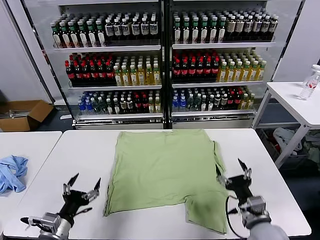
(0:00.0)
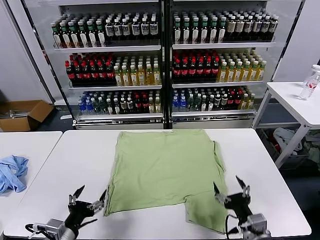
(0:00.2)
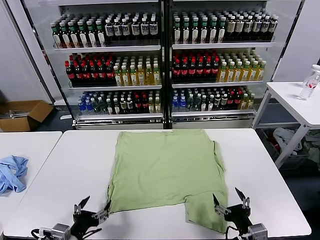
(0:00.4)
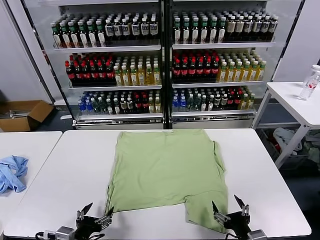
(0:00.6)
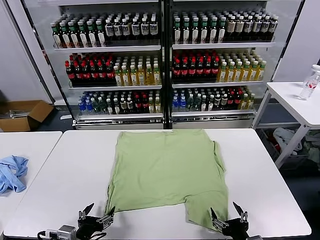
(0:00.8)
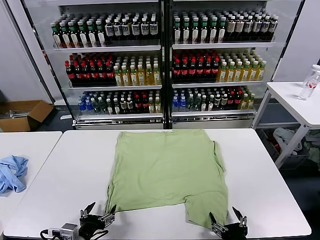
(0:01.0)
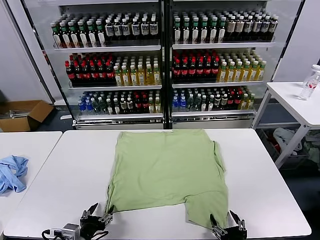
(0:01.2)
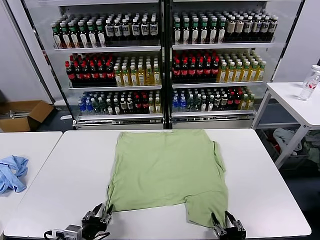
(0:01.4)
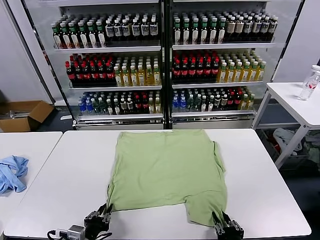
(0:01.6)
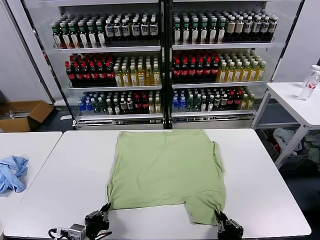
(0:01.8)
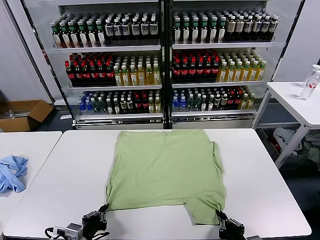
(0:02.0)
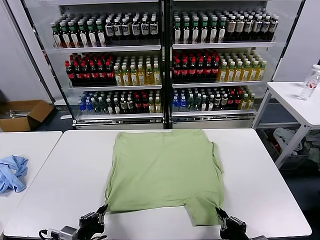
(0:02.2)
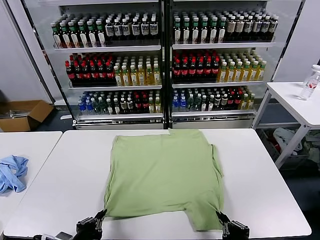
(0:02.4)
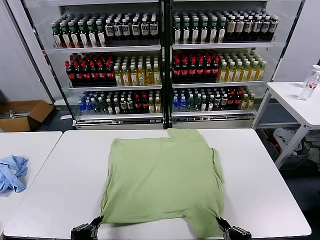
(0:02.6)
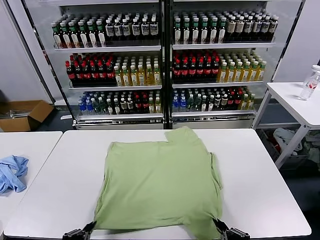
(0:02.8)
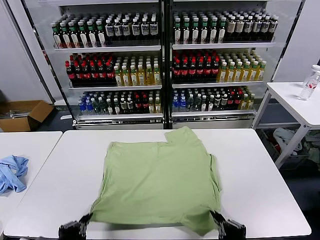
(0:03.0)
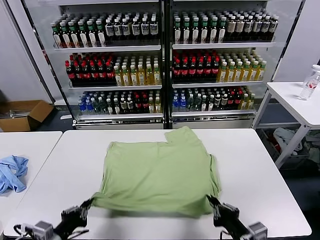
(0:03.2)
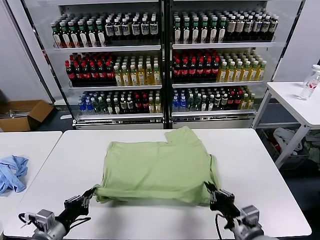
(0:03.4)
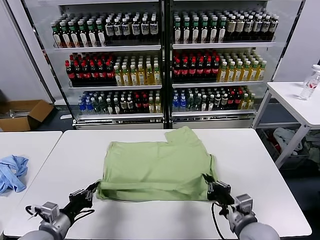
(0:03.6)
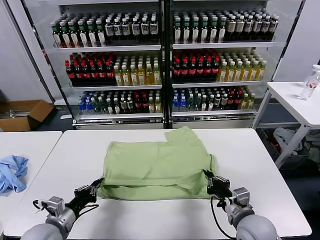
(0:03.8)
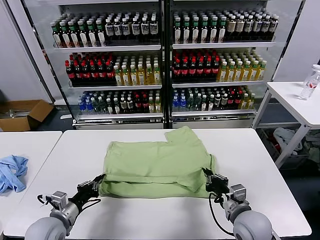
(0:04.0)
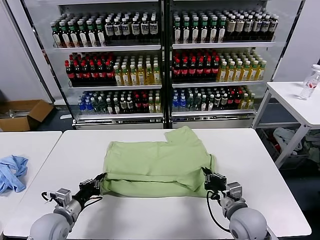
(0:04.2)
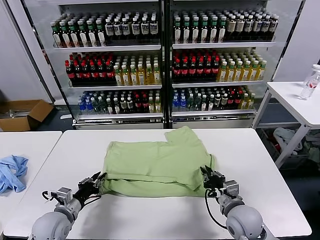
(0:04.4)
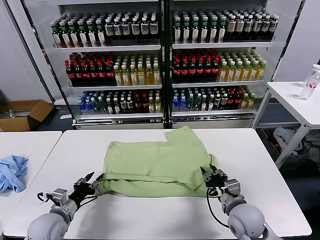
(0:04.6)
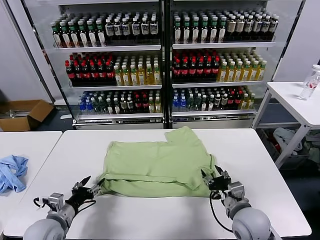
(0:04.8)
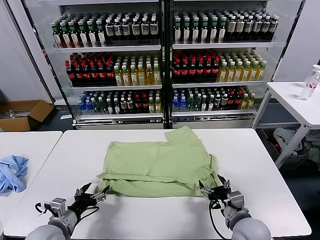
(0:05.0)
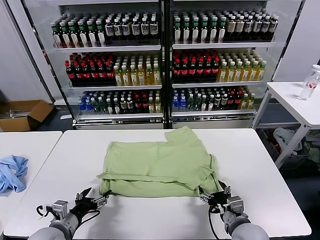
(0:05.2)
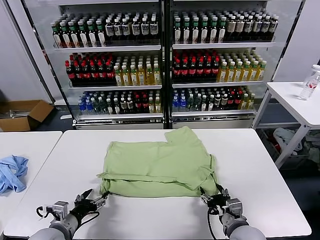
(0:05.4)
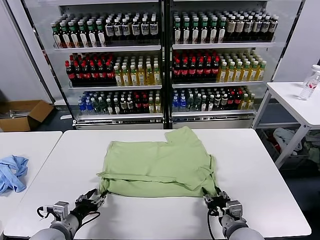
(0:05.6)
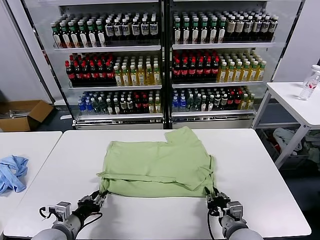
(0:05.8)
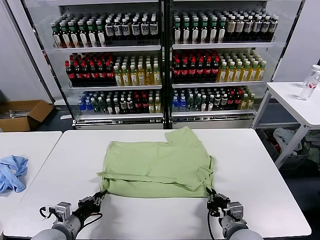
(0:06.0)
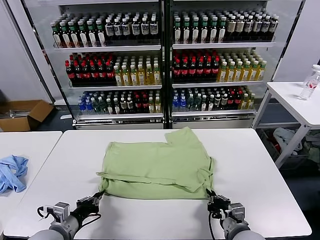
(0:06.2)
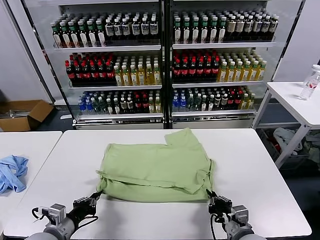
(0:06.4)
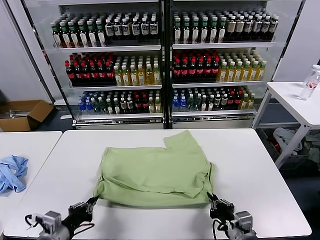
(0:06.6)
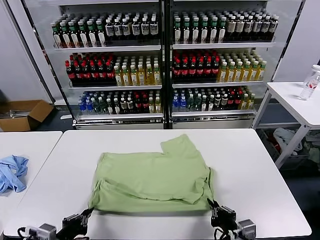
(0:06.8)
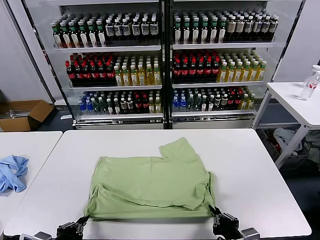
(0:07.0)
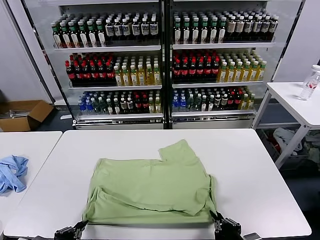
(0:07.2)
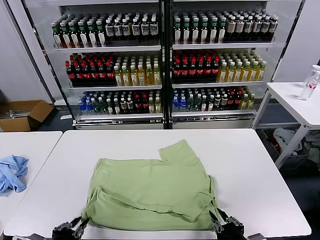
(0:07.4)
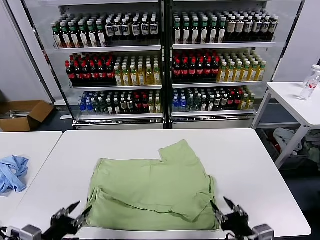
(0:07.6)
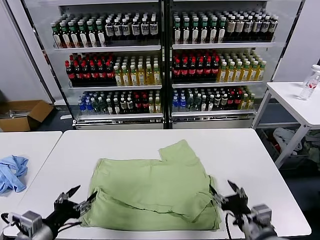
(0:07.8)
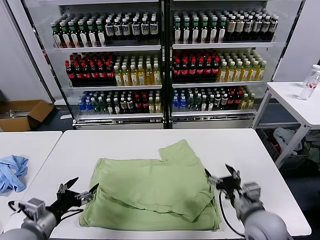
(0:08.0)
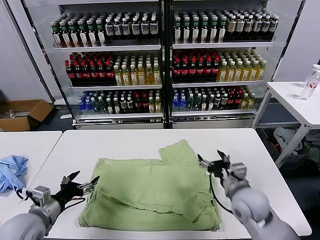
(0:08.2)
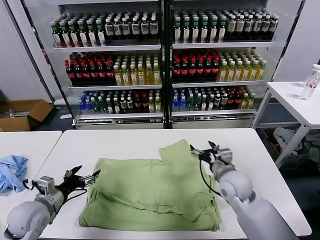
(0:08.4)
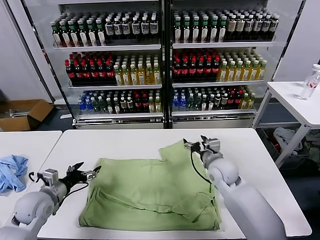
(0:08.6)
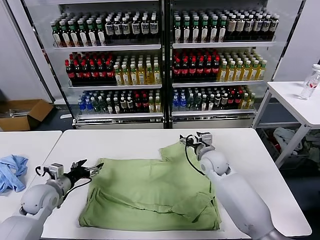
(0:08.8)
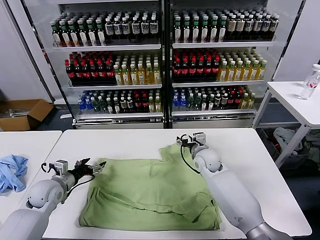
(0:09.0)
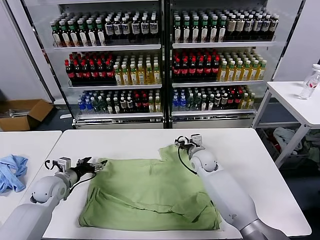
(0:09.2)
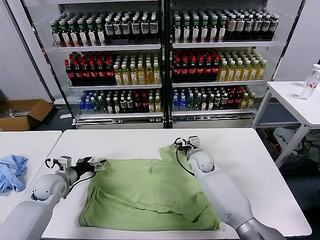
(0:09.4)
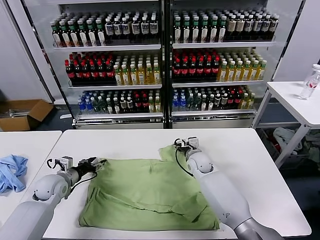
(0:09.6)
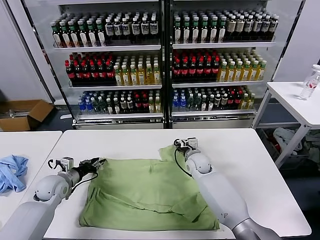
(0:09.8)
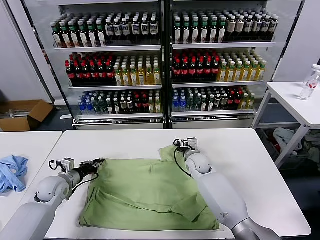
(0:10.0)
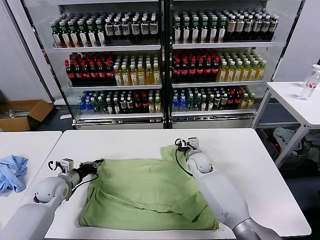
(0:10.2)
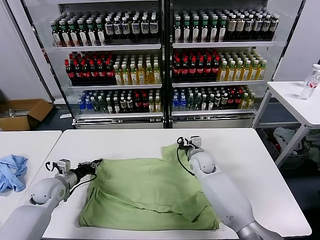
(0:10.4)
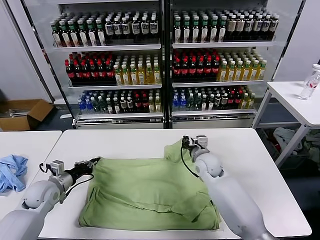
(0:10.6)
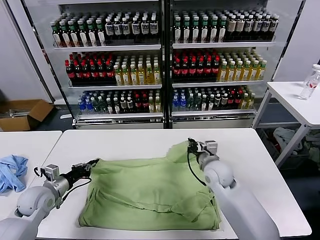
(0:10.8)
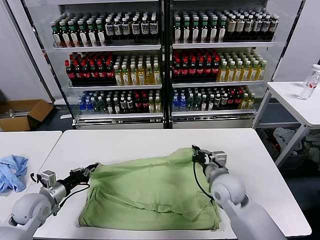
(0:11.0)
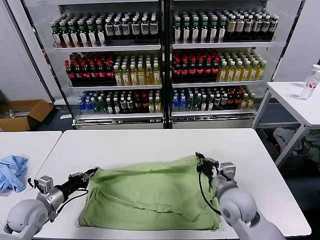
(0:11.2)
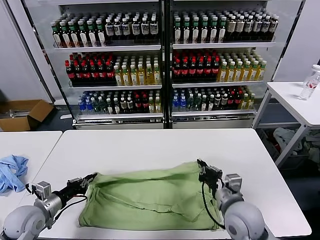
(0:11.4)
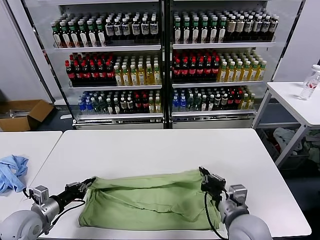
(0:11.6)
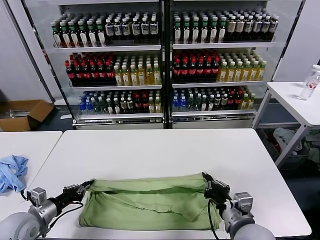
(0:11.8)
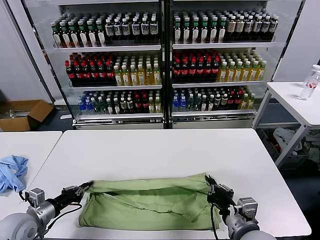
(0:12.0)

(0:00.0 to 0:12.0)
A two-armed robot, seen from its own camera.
Task of the whole recording: fold and organize the clothes.
Step, 0:00.0 - 0:01.8: use both grippers simultaneously to clamp the lower edge of the clothing fabric.
Step, 0:02.0 - 0:04.2: use both grippers to drag the lower edge of the fabric forward and fold it over the upper edge.
Step, 0:04.6 - 0:07.4: Drag the clothes downward with both gripper.
Step, 0:07.6 - 0:10.2: use both grippers simultaneously to clamp the upper edge of the clothing fabric.
0:01.6 - 0:03.0: The left gripper heads upward and to the left, covering roughly 10 cm, while the right gripper is displaced upward by about 10 cm.
0:03.0 - 0:04.4: The left gripper is displaced forward and downward by some 20 cm. Meanwhile the right gripper goes approximately 15 cm forward, and opens its fingers.
0:04.4 - 0:06.0: The two grippers go some 5 cm backward. The left gripper opens, then closes again, while the right gripper opens, then closes once more.
0:06.0 - 0:07.6: The right gripper goes roughly 10 cm upward and backward, and opens up. Meanwhile the left gripper heads backward and upward, covering about 15 cm, and opens up.
0:07.6 - 0:09.0: The grippers both shift forward by about 30 cm. The left gripper opens.
0:09.0 - 0:10.4: The left gripper closes up. Meanwhile the right gripper closes its fingers.
0:10.4 - 0:12.0: The right gripper is displaced backward by roughly 30 cm. Meanwhile the left gripper moves backward, about 15 cm.

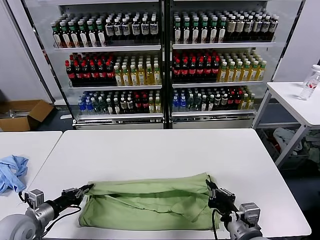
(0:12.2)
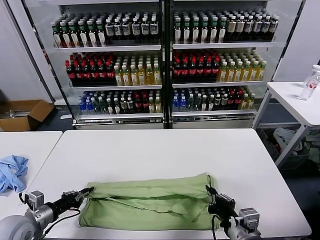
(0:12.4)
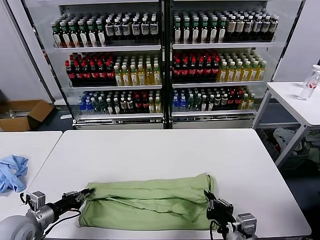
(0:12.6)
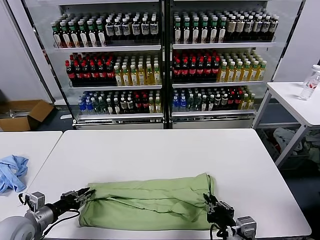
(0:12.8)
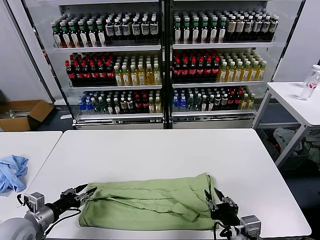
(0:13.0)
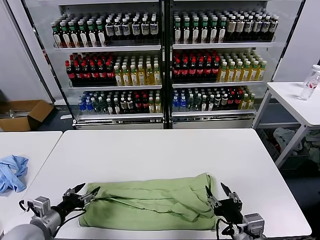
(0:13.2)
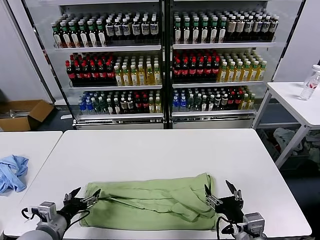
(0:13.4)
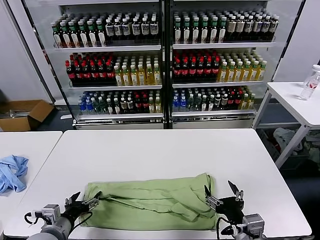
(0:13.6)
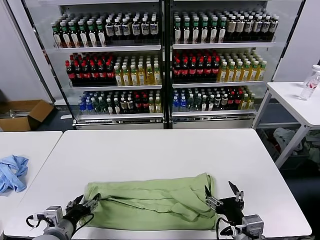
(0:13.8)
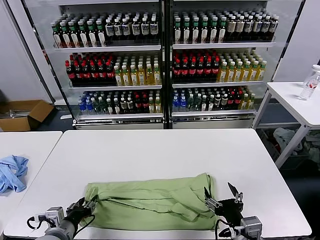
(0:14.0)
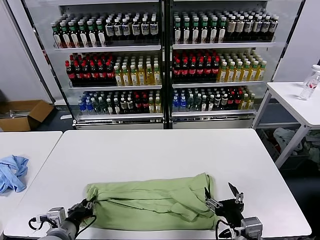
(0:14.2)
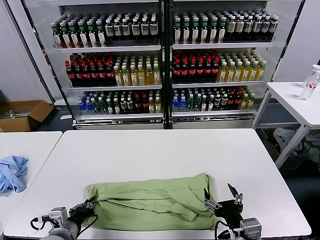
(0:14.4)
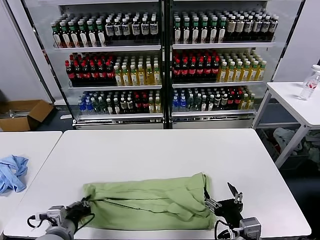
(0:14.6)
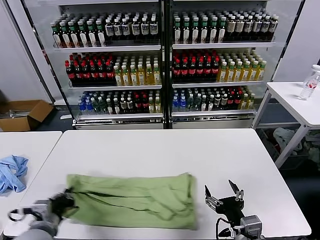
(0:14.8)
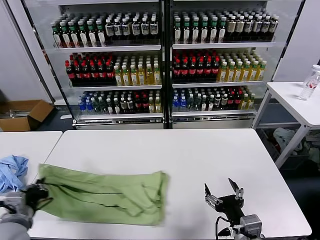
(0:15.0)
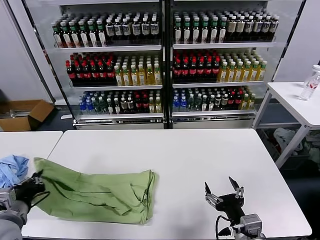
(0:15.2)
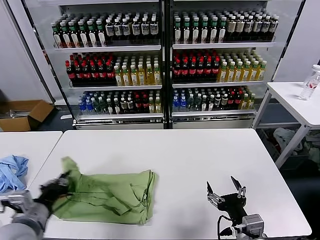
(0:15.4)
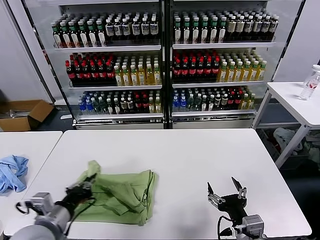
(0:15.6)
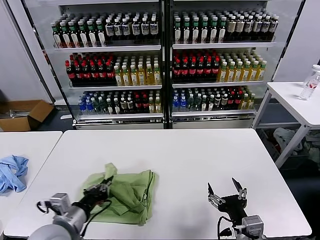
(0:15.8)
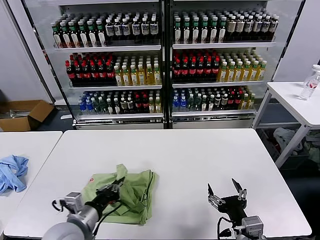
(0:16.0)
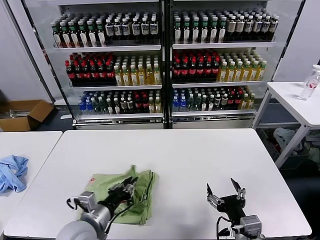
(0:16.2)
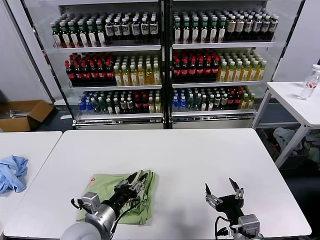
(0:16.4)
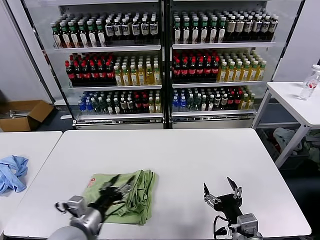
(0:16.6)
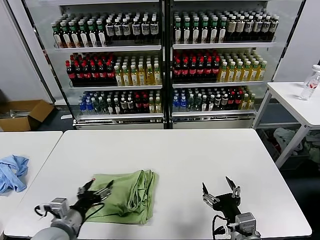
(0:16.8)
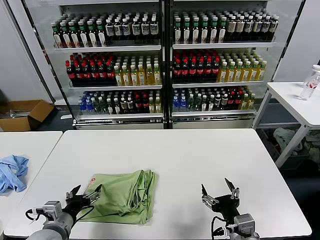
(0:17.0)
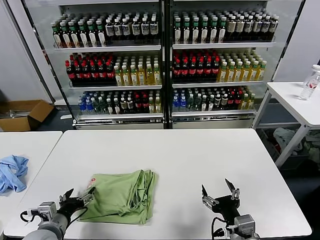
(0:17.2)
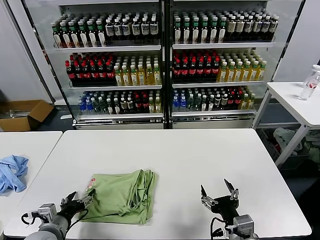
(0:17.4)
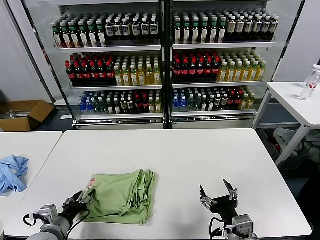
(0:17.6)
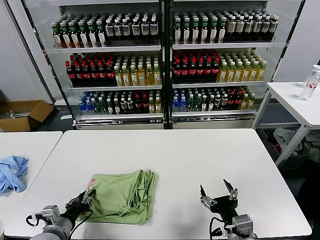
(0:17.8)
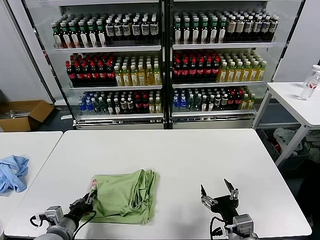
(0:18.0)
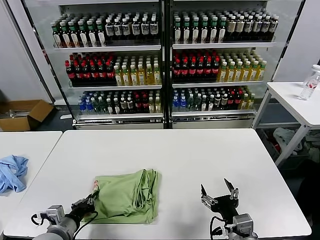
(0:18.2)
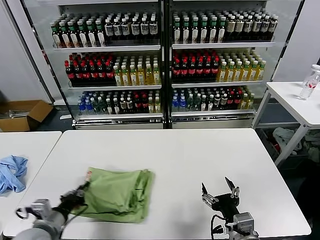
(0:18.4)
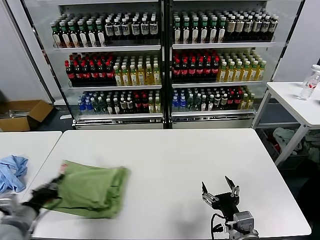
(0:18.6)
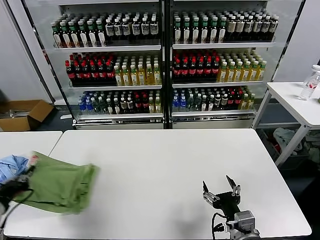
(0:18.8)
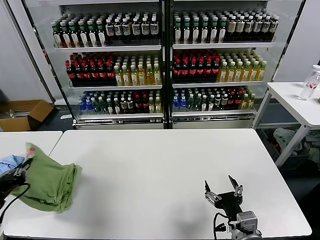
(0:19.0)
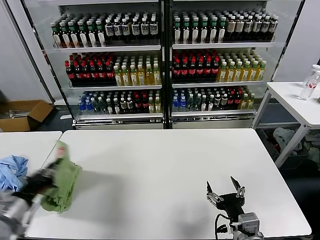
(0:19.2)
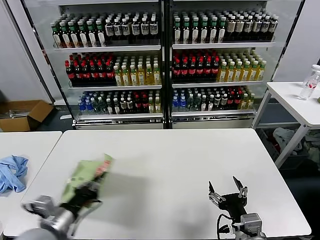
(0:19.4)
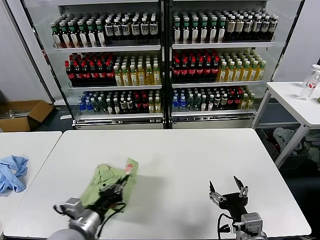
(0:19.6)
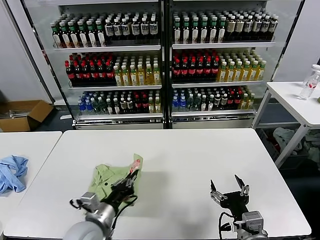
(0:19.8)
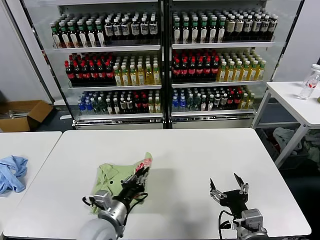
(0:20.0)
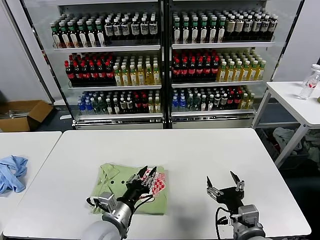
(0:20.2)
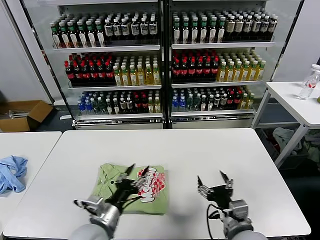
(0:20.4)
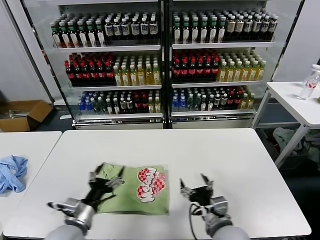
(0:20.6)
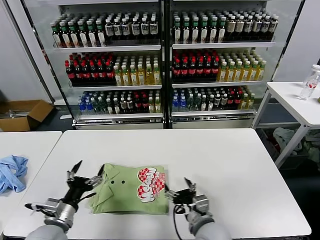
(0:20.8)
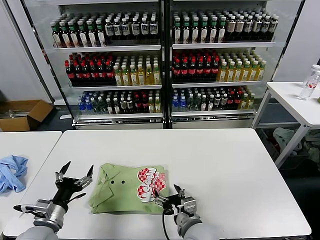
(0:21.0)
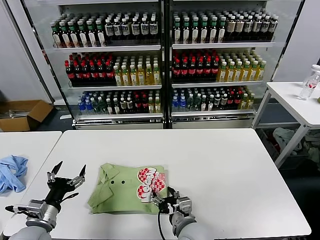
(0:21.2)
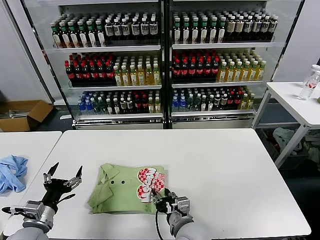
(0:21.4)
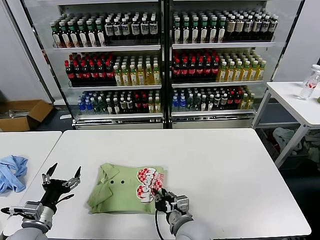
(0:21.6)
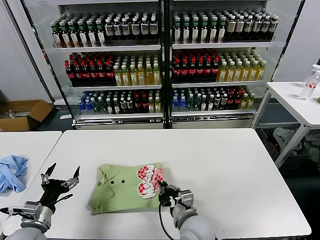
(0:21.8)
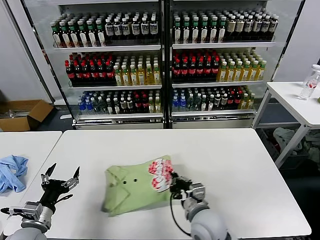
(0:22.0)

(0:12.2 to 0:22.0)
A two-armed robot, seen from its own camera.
Task of the whole recording: fold and organize the clothes.
Step, 0:13.0 - 0:14.2: use the left gripper to clamp the left edge of the fabric.
Step, 0:14.4 - 0:16.4: use the left gripper to drag the left edge of the fabric to the left and folds it over the right edge.
Step, 0:16.6 - 0:20.0: Flip the folded clothes over with left gripper.
0:12.2 - 0:13.6: The right gripper opens up. Meanwhile the left gripper heads to the right, covering some 10 cm, and opens up.
0:13.6 - 0:15.0: The left gripper moves upward, about 5 cm, and closes its fingers.
0:15.0 - 0:16.4: The left gripper moves to the right, roughly 15 cm, and opens up.
0:16.4 - 0:17.8: The left gripper travels to the left and downward by some 15 cm, and opens, then closes again.
0:17.8 - 0:19.2: The left gripper goes approximately 15 cm upward and to the left, and closes up.
0:19.2 - 0:20.6: The right gripper moves about 5 cm. The left gripper goes approximately 20 cm to the right and downward, and opens up.
0:20.6 - 0:22.0: The right gripper goes roughly 5 cm to the left, and closes up. The left gripper shifts about 15 cm to the left.
